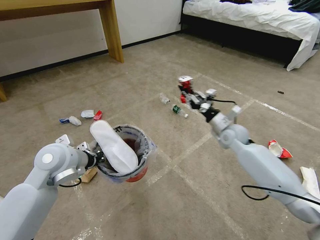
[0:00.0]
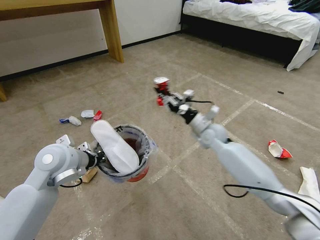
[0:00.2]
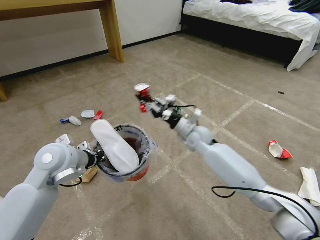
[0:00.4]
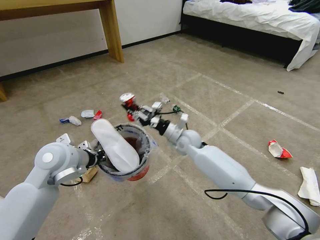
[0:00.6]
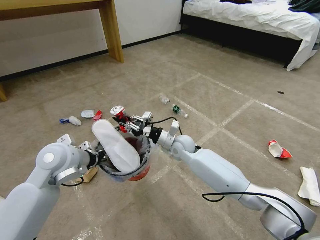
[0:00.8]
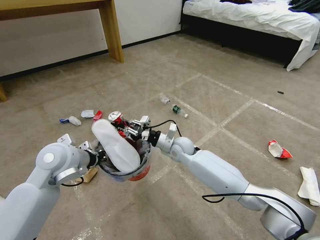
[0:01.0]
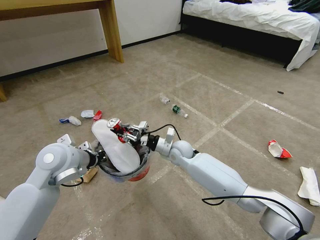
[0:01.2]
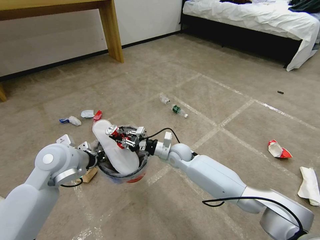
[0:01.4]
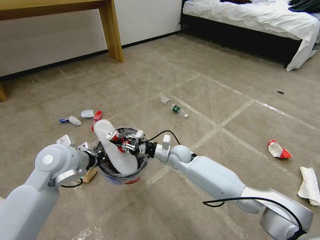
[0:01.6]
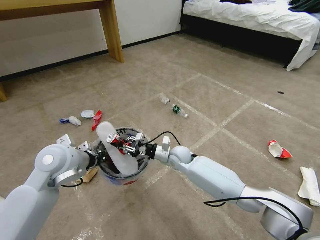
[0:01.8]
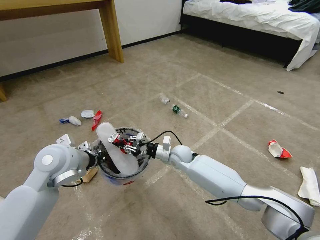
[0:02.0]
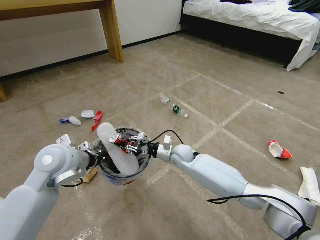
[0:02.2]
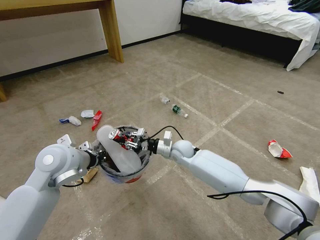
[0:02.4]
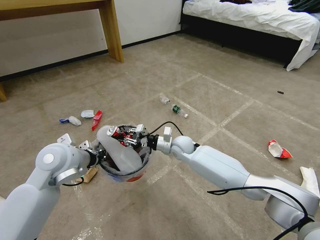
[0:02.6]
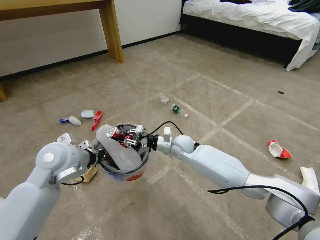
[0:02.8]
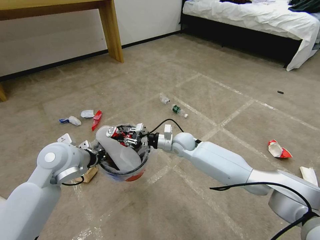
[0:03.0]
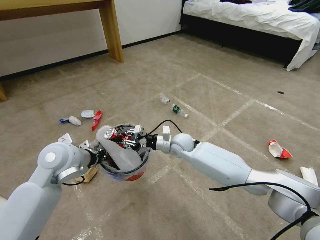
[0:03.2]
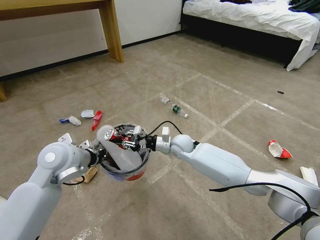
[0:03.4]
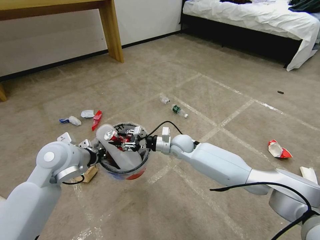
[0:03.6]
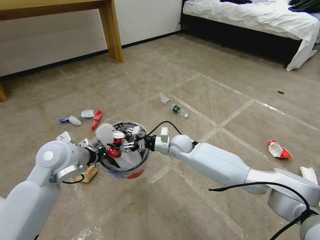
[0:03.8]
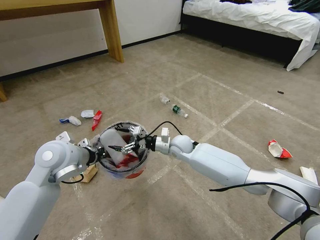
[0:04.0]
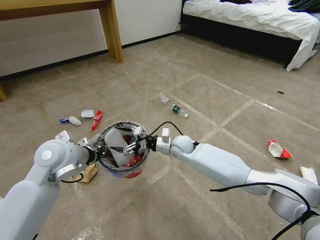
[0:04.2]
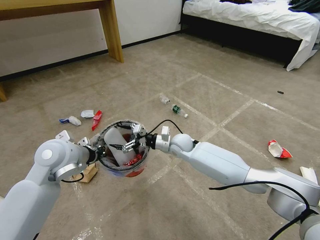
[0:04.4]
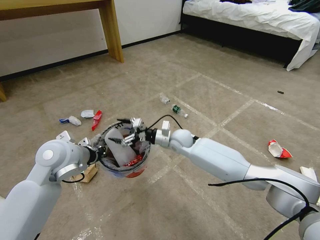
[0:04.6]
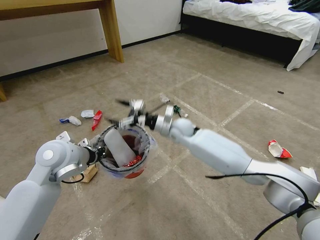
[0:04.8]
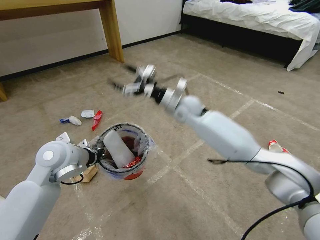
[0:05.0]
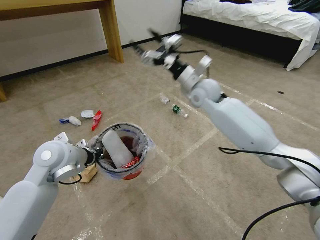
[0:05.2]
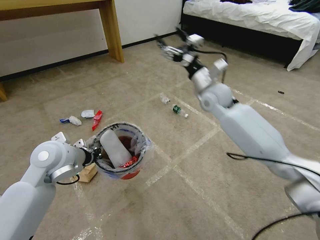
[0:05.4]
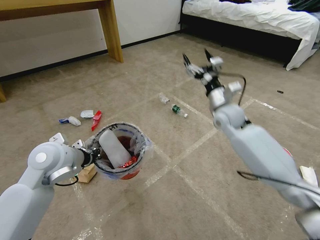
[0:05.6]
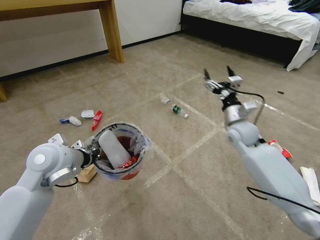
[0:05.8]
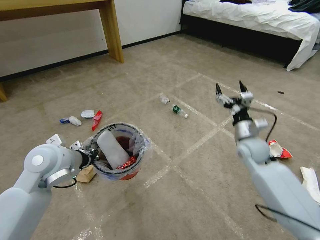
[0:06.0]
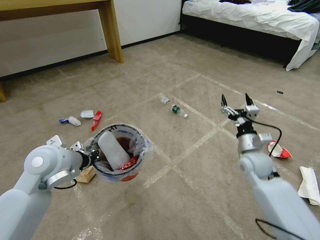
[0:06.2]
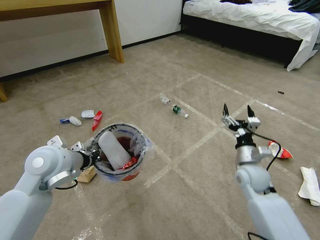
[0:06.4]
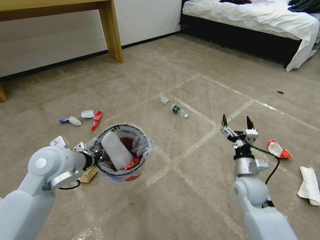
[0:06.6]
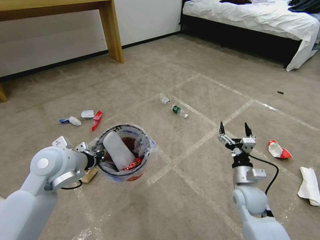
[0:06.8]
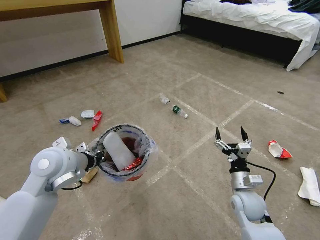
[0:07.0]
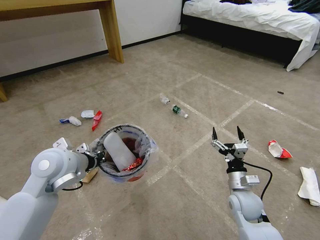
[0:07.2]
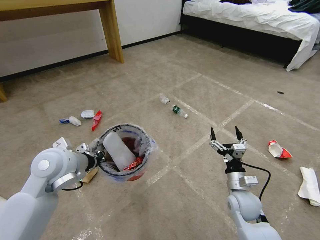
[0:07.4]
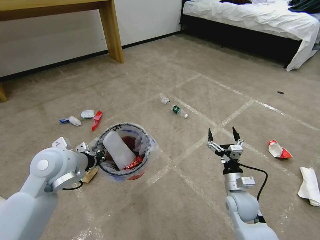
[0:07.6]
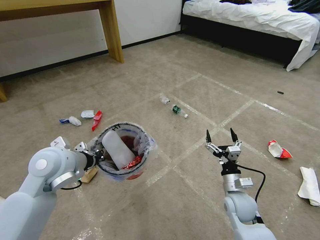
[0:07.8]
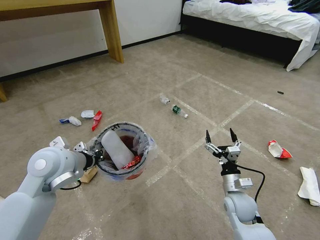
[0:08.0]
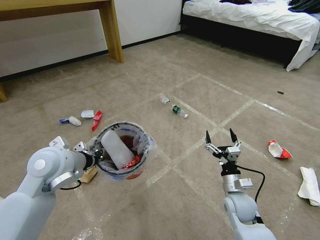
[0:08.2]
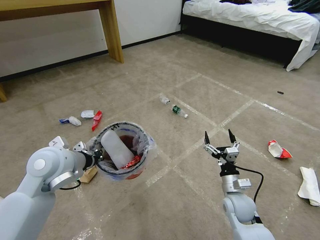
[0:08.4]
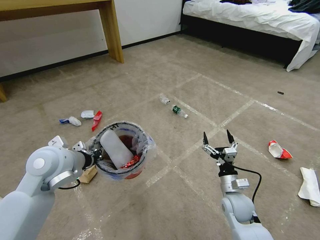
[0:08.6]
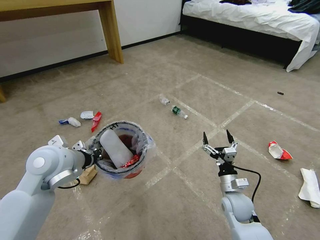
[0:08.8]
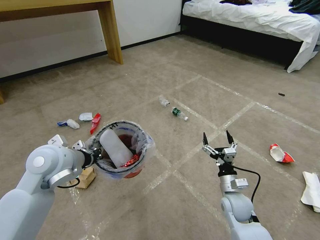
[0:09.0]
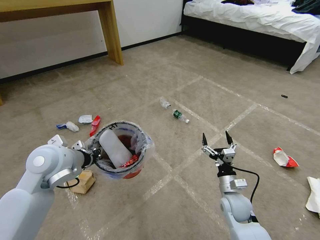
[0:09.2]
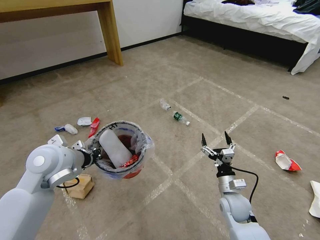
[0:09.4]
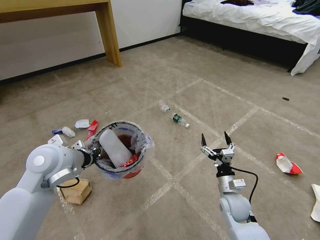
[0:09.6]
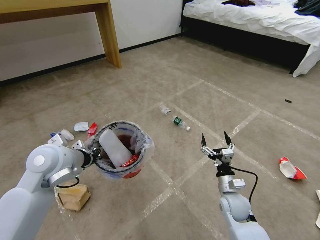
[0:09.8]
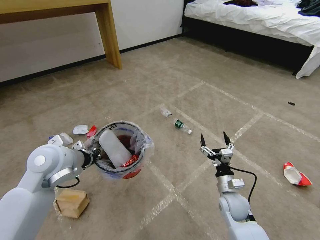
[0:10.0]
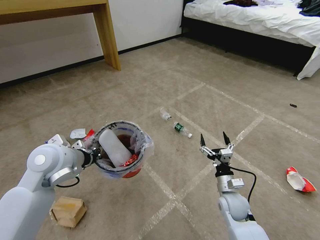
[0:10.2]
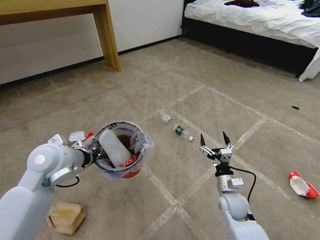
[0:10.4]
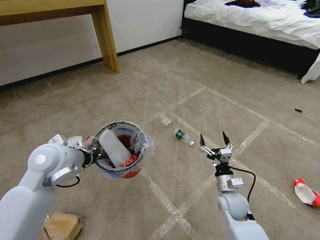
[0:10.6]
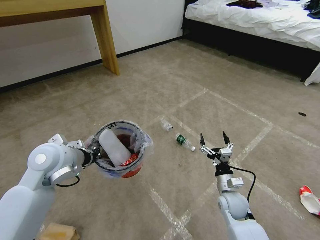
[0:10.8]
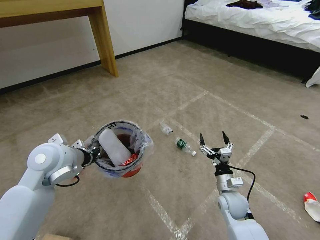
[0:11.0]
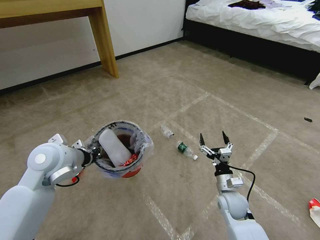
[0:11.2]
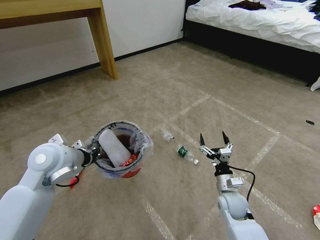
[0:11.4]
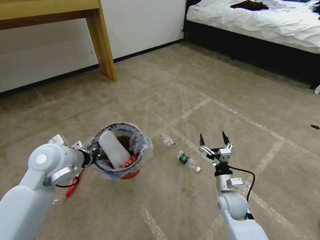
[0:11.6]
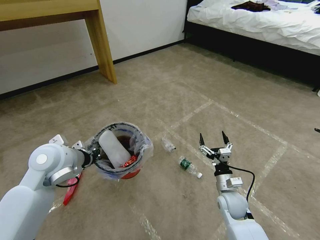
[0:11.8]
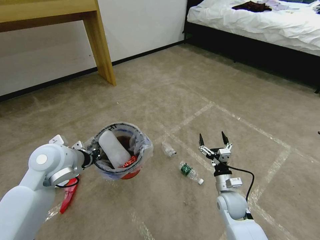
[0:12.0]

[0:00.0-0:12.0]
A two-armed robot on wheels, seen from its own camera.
Task of the whole recording: Pick up the trash bin and place the garbage on the floor into it.
0:00.0 to 0:01.6: The right gripper is displaced to the left and downward by about 25 cm.
0:01.6 to 0:03.0: The right gripper ends up approximately 5 cm from where it was.
0:03.0 to 0:04.4: The right gripper opens its fingers.
0:04.4 to 0:06.0: The right gripper travels to the right by roughly 25 cm.
0:06.0 to 0:07.6: The right gripper travels backward and downward by roughly 20 cm.
0:07.6 to 0:09.0: The grippers make only small movements.

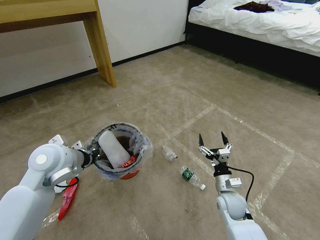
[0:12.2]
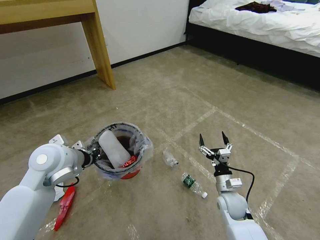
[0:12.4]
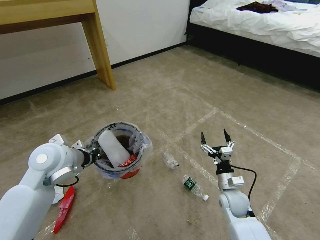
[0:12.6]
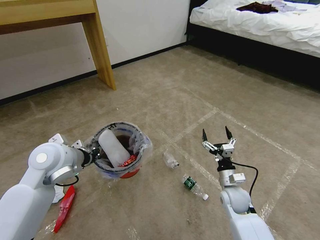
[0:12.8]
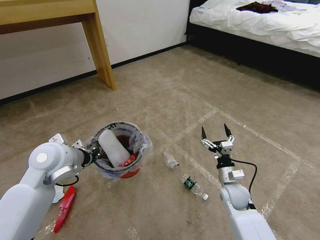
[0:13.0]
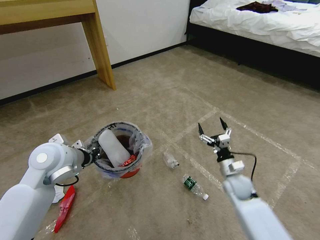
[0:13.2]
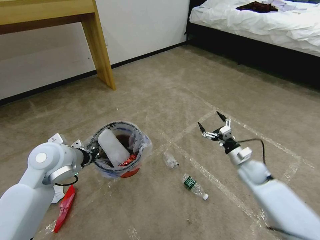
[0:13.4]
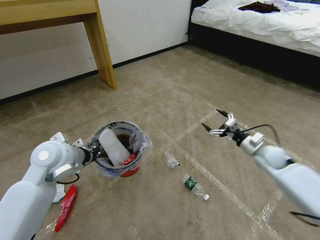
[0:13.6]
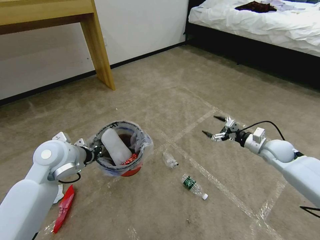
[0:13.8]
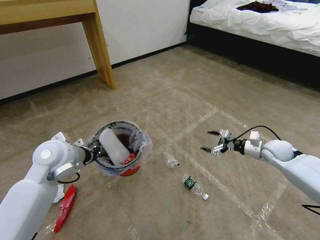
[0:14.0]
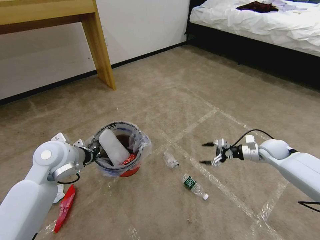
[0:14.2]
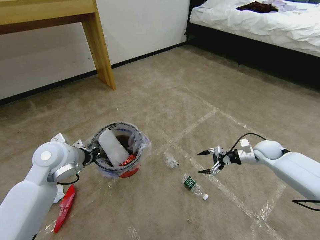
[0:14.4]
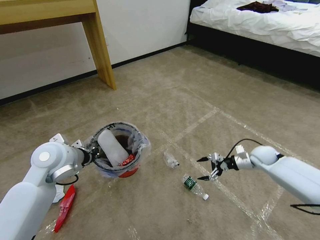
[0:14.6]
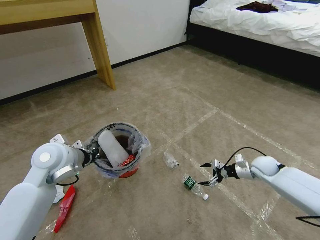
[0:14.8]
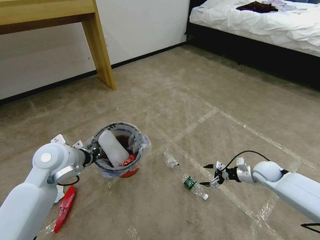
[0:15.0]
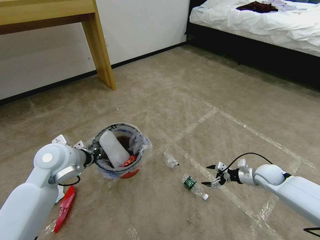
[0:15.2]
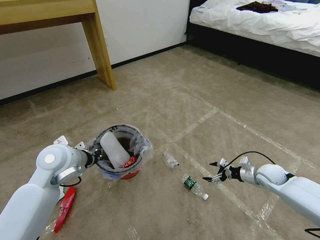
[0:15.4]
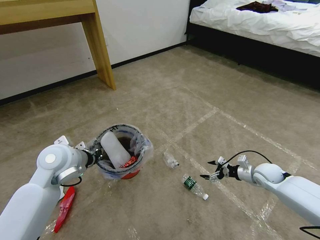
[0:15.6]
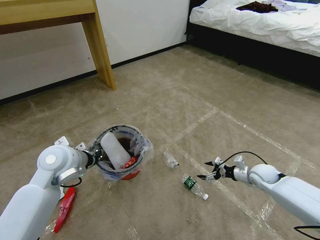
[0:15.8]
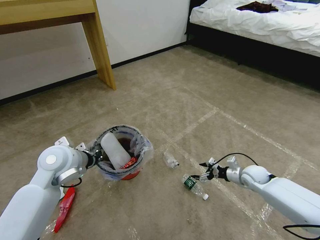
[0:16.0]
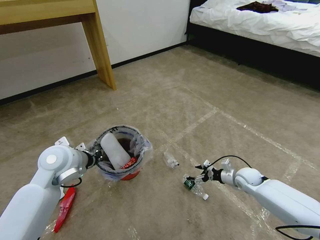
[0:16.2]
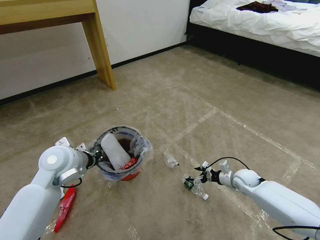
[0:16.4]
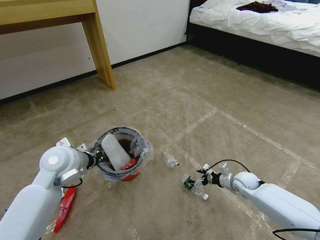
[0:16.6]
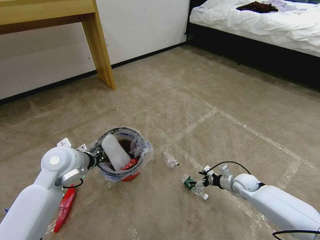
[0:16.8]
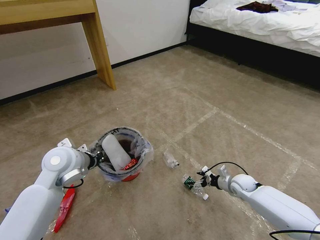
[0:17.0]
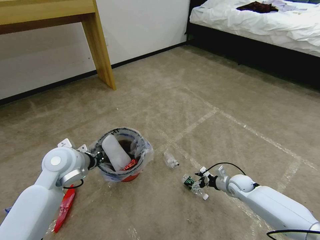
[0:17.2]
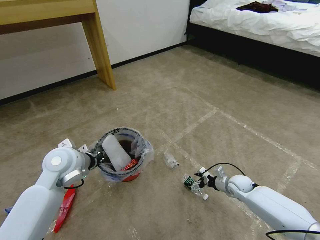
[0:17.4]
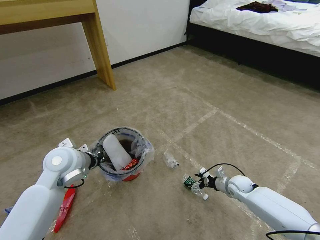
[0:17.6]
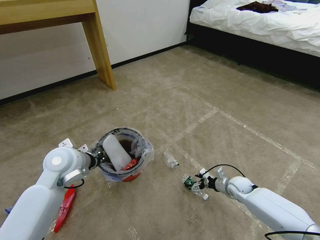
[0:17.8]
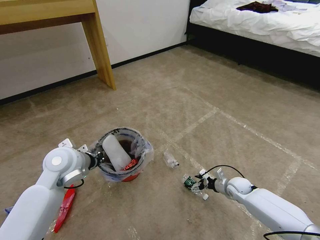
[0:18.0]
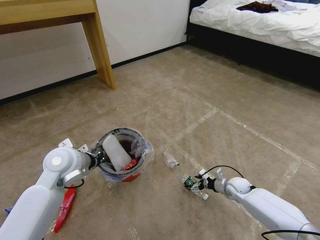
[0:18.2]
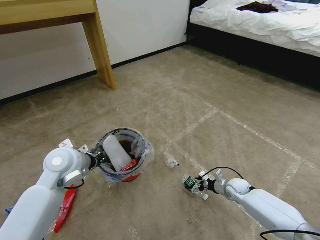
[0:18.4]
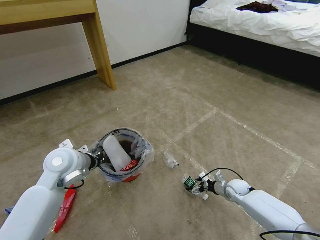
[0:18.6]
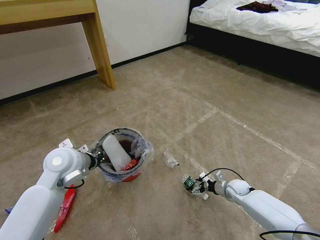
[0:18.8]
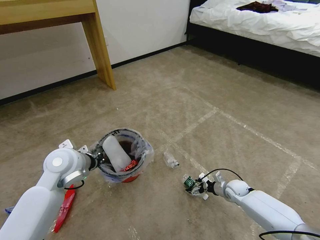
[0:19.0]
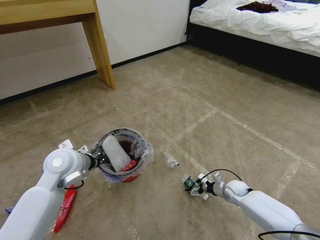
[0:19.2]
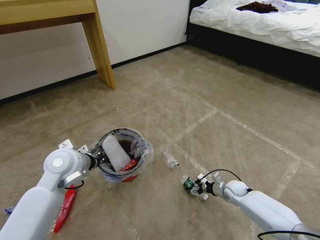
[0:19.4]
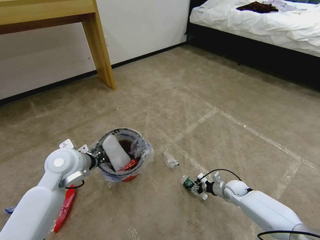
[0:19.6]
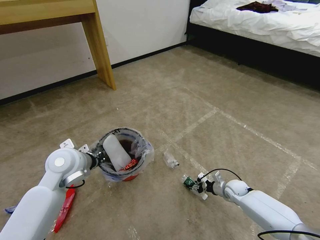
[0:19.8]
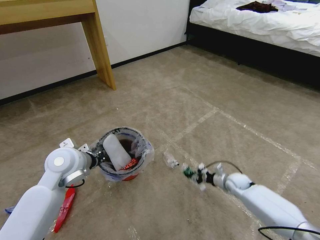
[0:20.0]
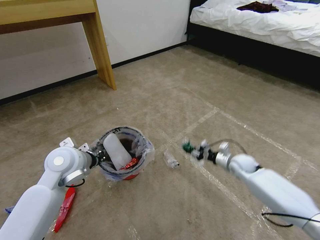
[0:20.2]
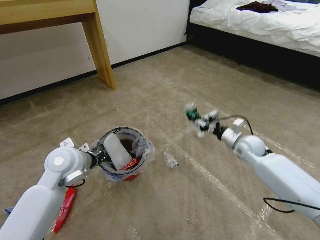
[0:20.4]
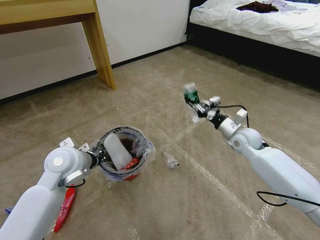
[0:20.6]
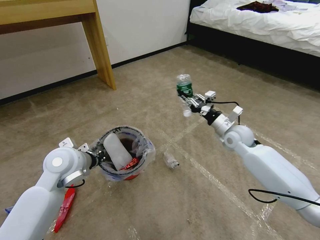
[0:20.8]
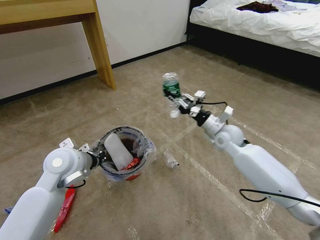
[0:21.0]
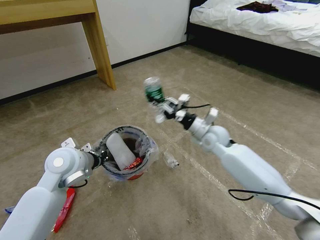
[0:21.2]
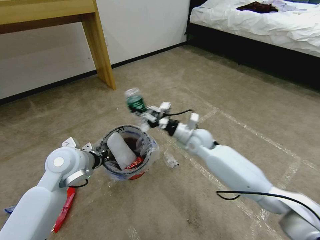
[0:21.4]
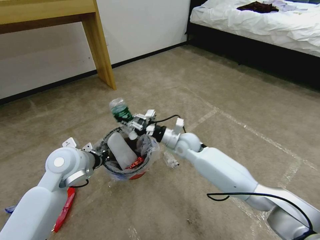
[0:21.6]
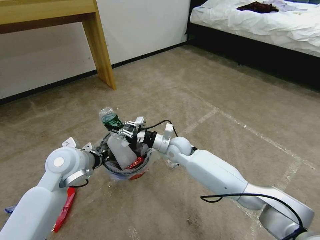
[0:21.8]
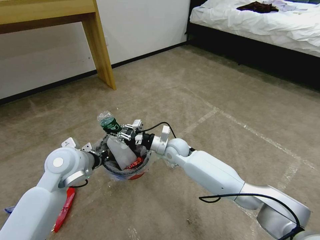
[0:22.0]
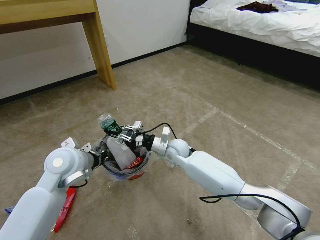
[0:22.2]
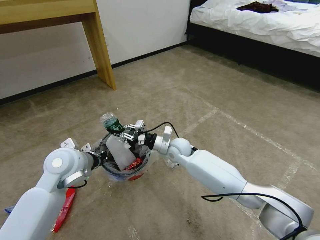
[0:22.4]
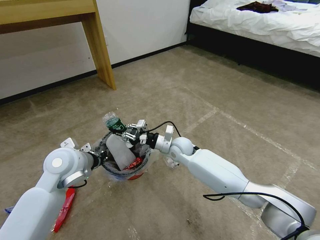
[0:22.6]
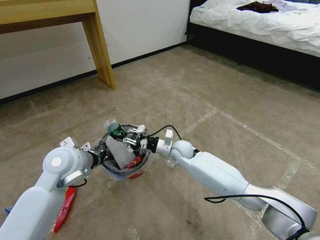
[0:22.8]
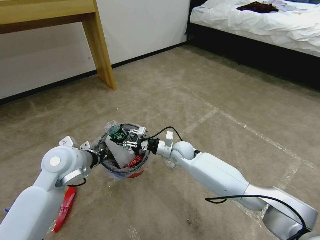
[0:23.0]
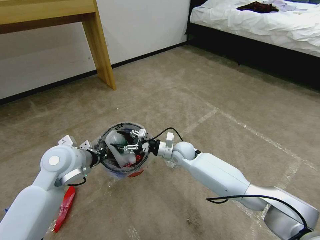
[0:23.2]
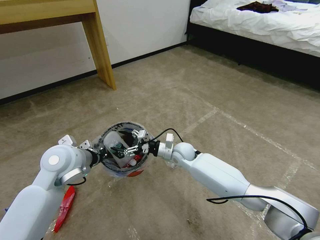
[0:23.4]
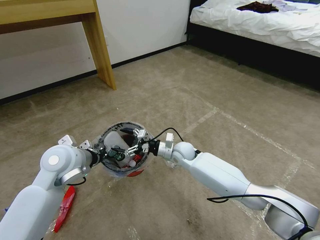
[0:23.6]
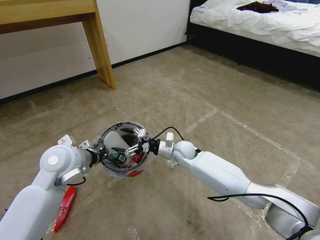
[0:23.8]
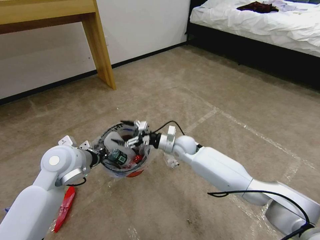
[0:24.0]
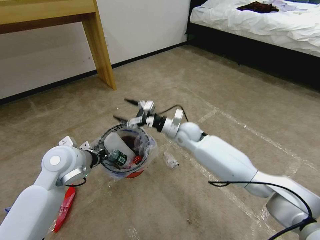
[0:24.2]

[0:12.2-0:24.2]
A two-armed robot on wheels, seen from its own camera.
Task of the whole recording: Pick up the trash bin and place the garbage on the floor into it.
0:12.2 to 0:13.8: The right gripper is displaced to the right, forward and upward by about 25 cm.
0:13.8 to 0:15.2: The right gripper goes approximately 10 cm downward.
0:15.2 to 0:16.6: The right gripper is displaced to the left and downward by some 10 cm.
0:16.6 to 0:18.2: The grippers move only a little.
0:18.2 to 0:19.8: The right gripper closes its fingers.
0:19.8 to 0:21.2: The right gripper is displaced upward and to the left by some 30 cm.
0:21.2 to 0:22.6: The right gripper shifts roughly 15 cm to the left and downward.
0:22.6 to 0:24.2: The right gripper moves upward, some 5 cm, and opens.
